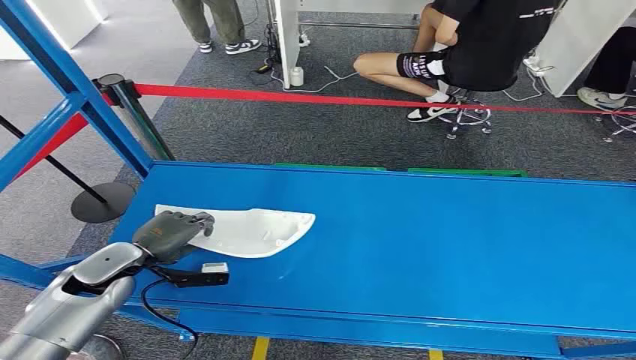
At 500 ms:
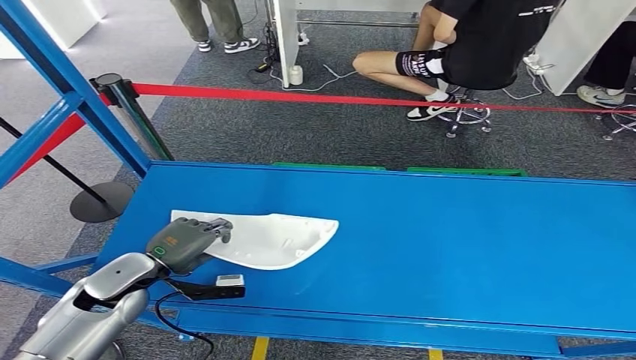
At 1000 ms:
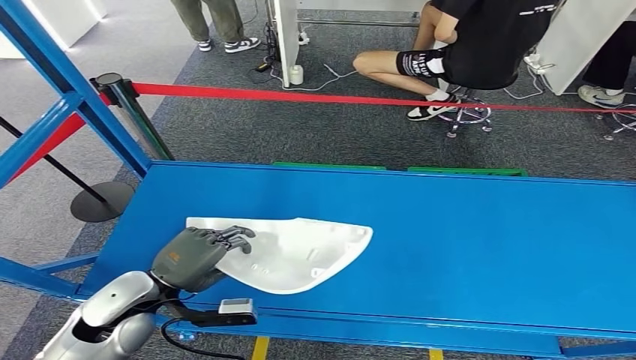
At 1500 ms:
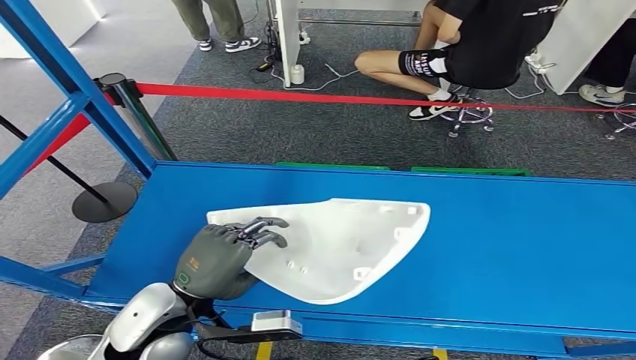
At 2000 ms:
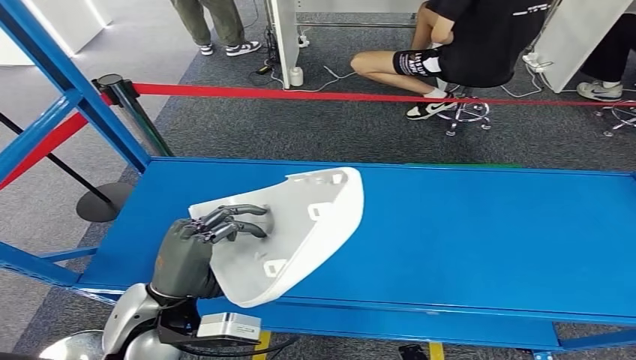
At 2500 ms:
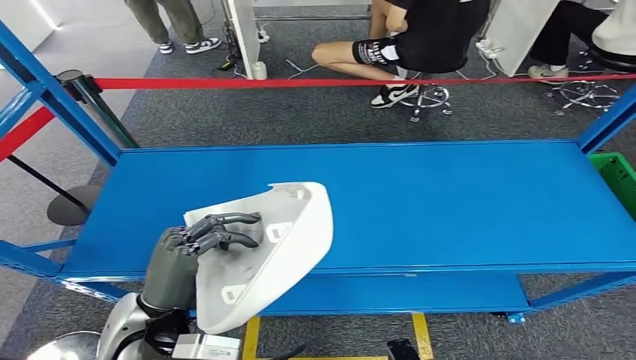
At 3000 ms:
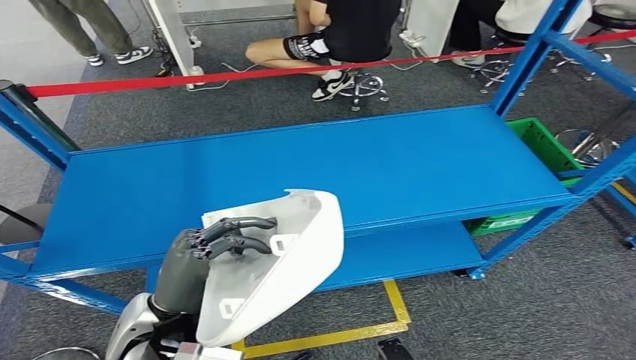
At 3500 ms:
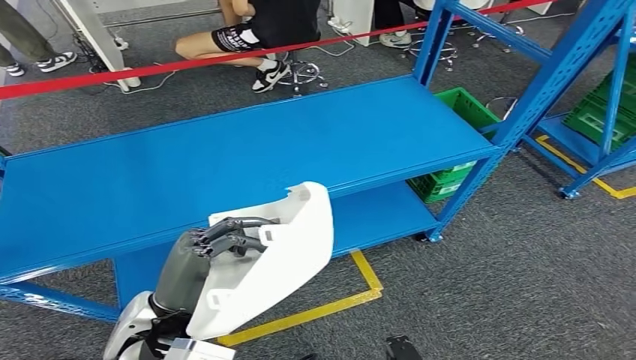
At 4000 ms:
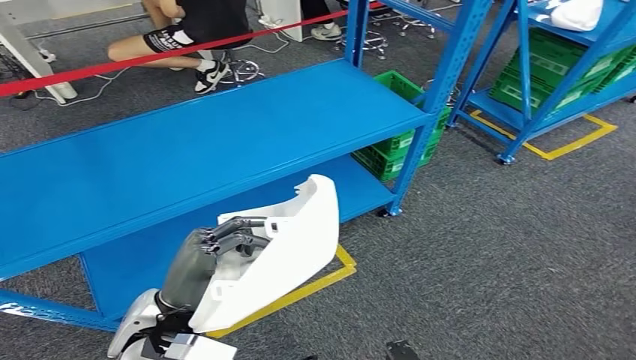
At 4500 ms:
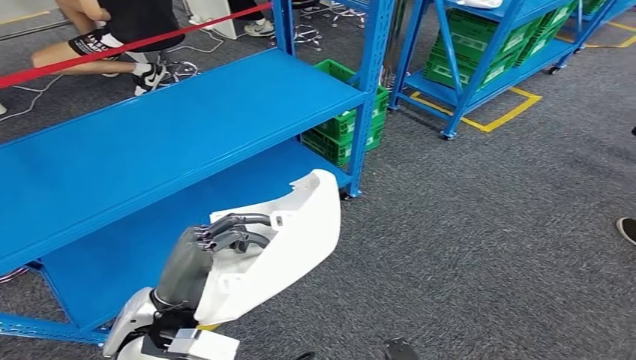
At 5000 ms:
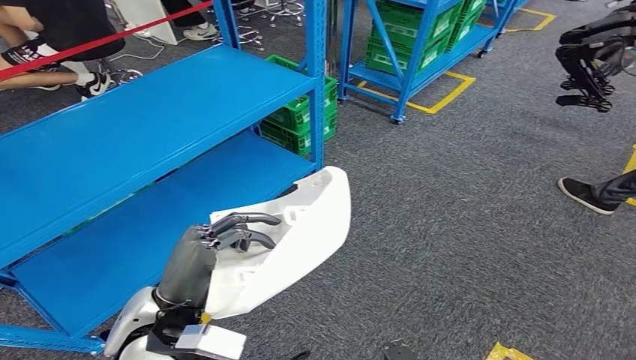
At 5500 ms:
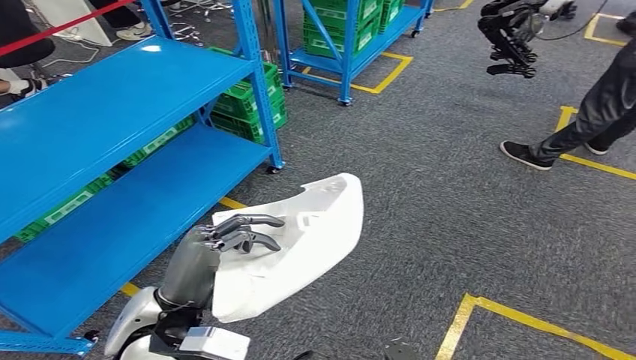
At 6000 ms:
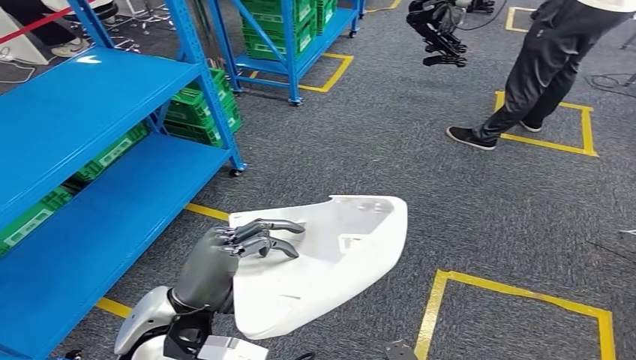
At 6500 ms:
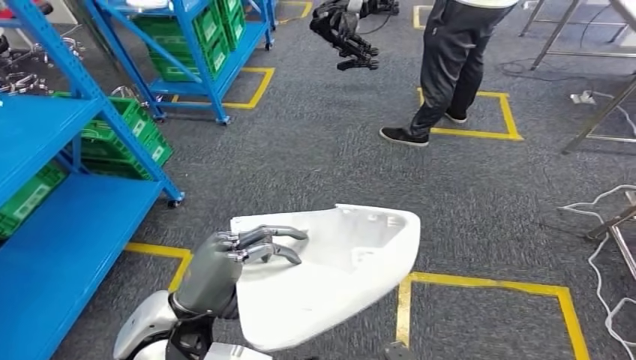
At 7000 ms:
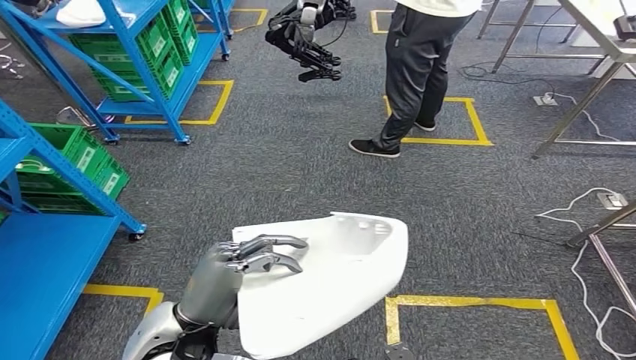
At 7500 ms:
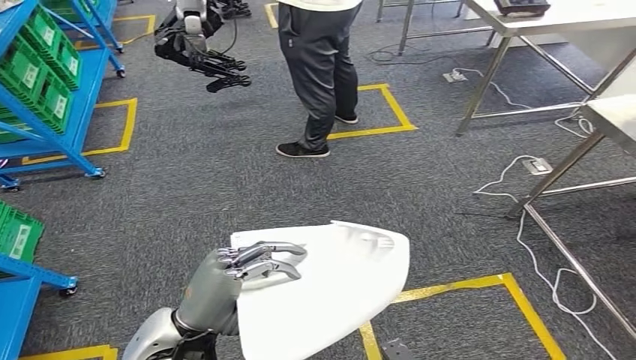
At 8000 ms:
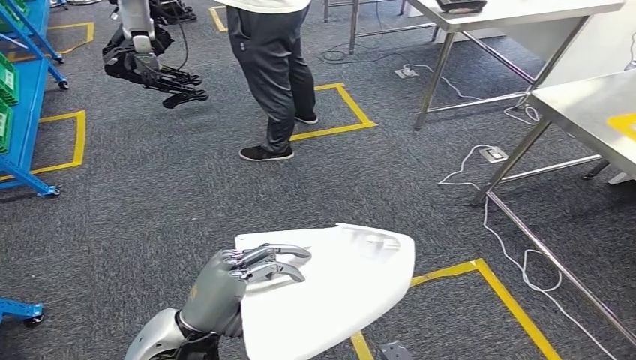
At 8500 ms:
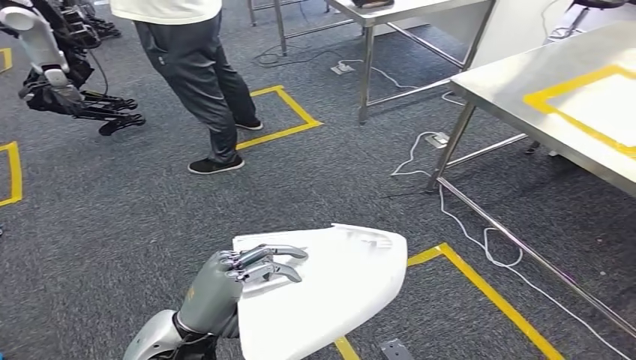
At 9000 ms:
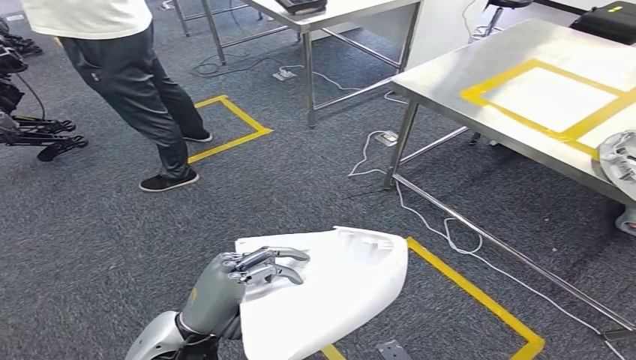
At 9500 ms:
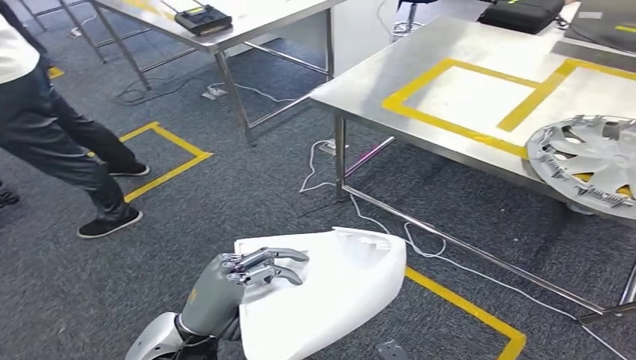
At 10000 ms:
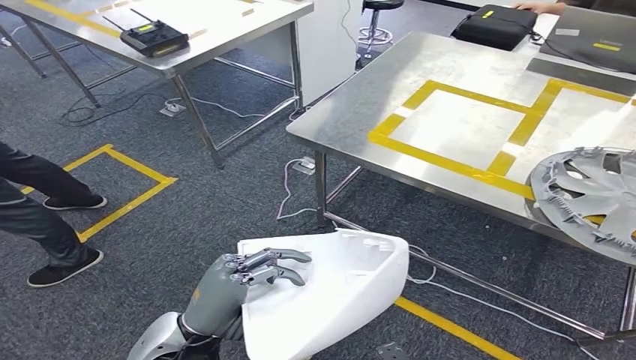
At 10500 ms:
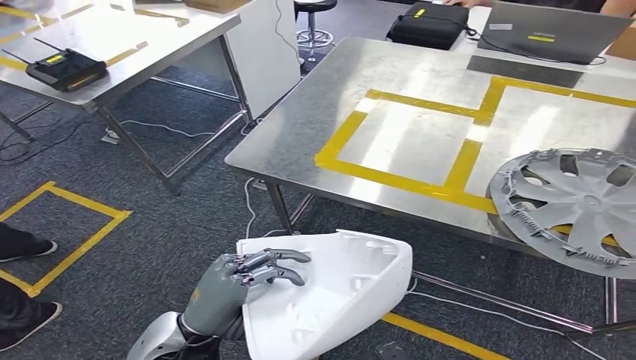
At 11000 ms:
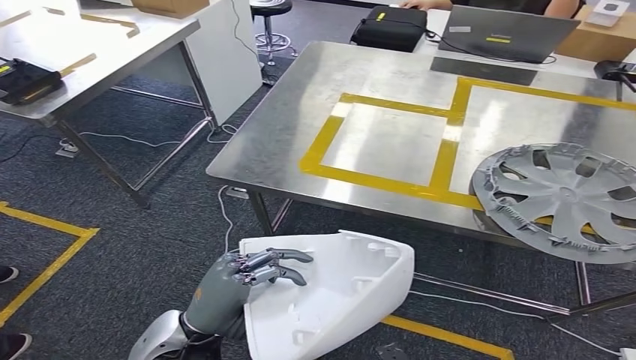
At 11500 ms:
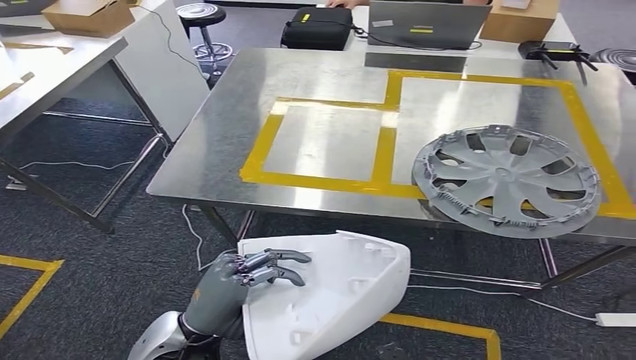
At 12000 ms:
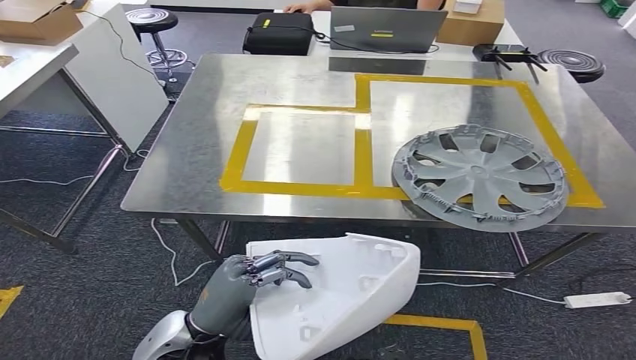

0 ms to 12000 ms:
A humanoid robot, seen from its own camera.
Step, 0 ms to 3500 ms: Pick up the small component from the shelf.

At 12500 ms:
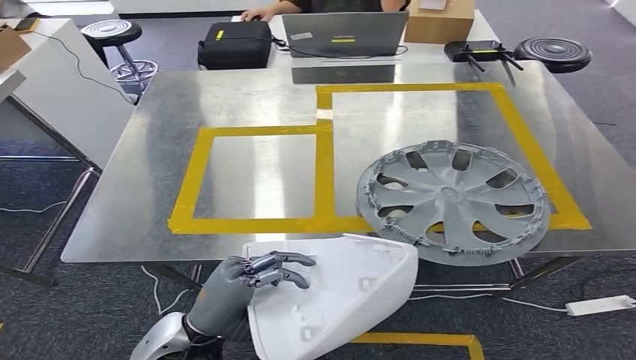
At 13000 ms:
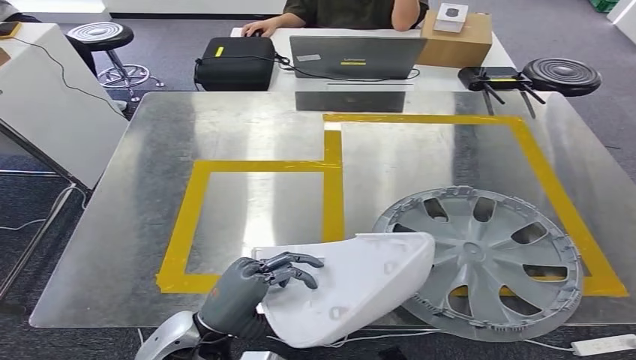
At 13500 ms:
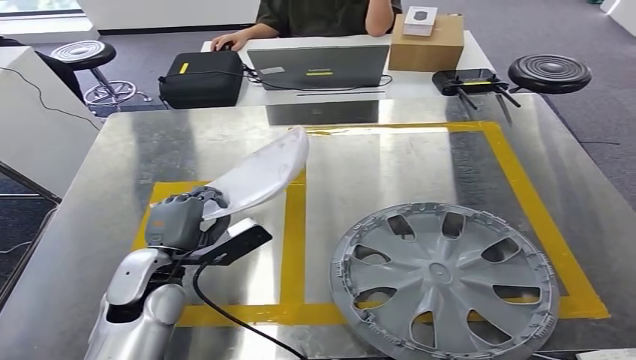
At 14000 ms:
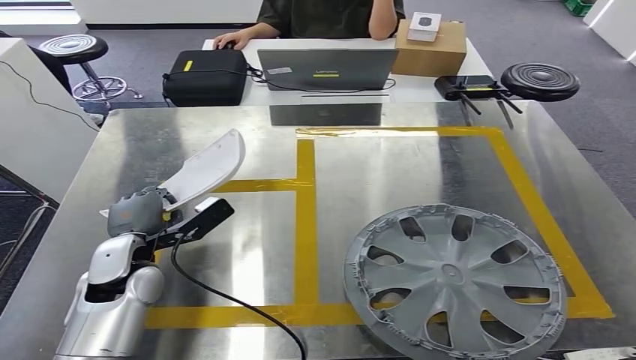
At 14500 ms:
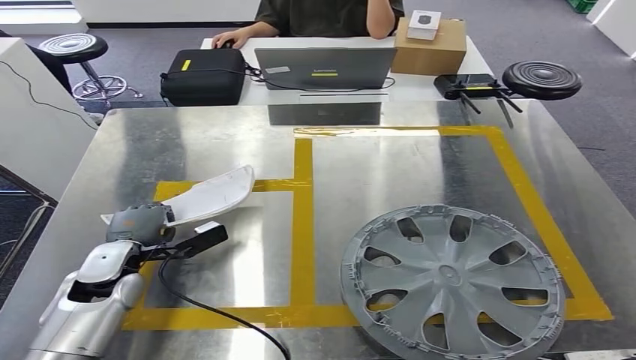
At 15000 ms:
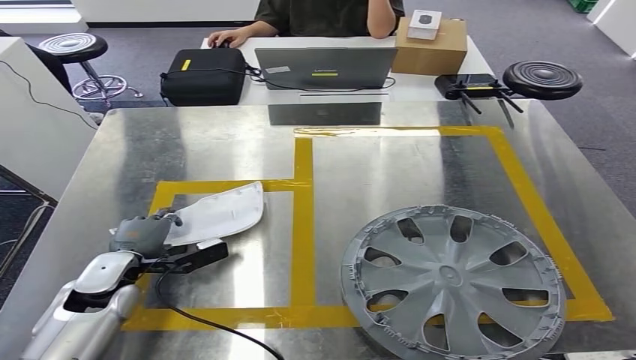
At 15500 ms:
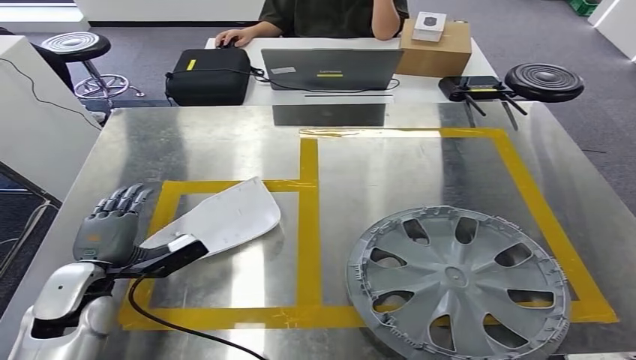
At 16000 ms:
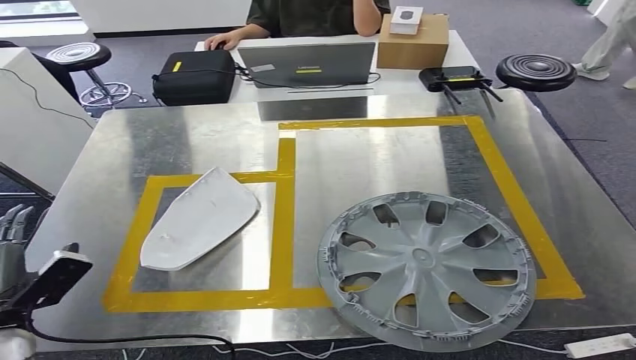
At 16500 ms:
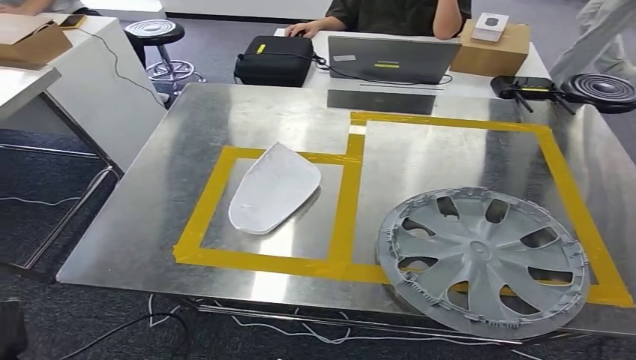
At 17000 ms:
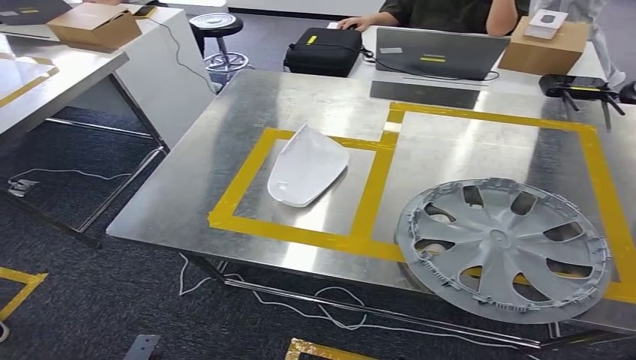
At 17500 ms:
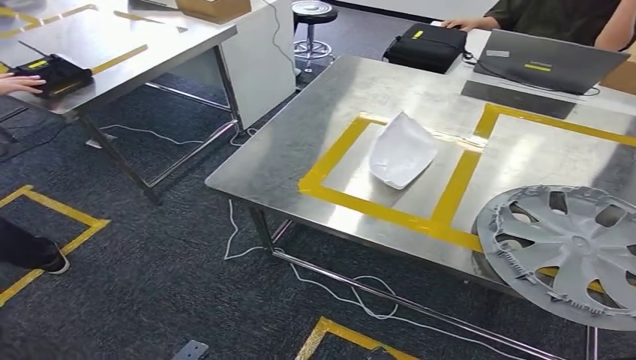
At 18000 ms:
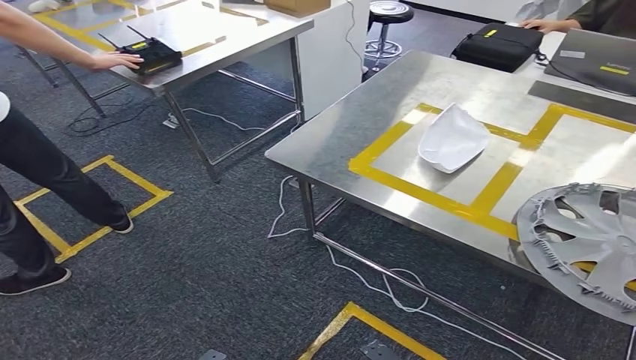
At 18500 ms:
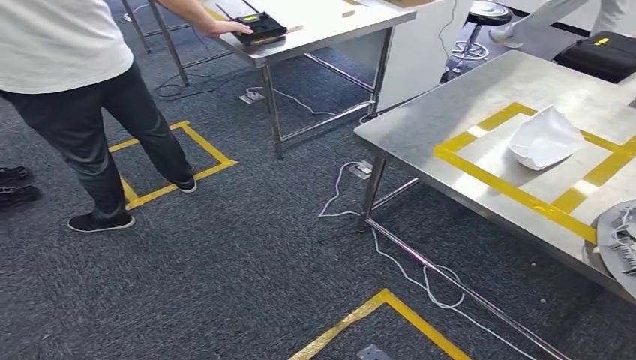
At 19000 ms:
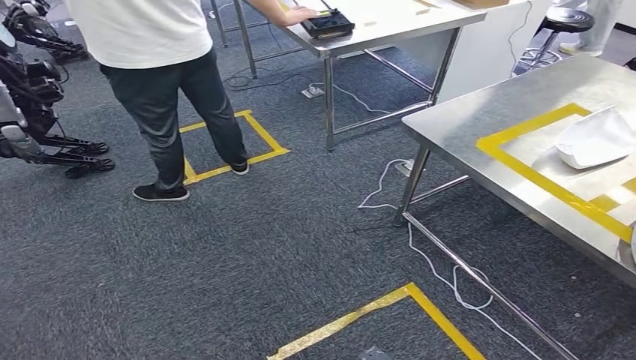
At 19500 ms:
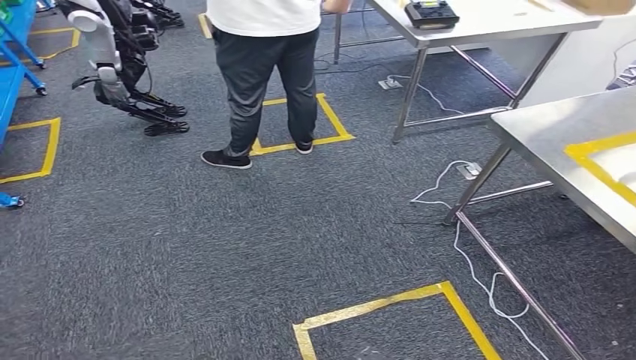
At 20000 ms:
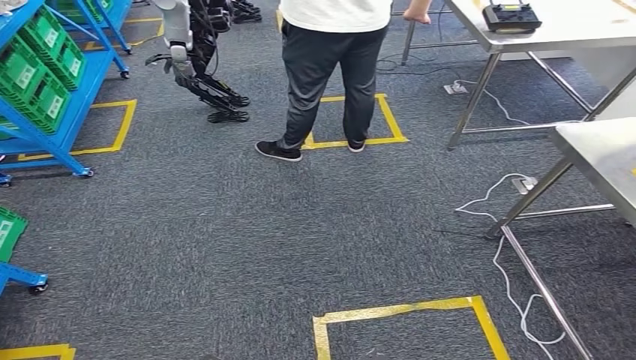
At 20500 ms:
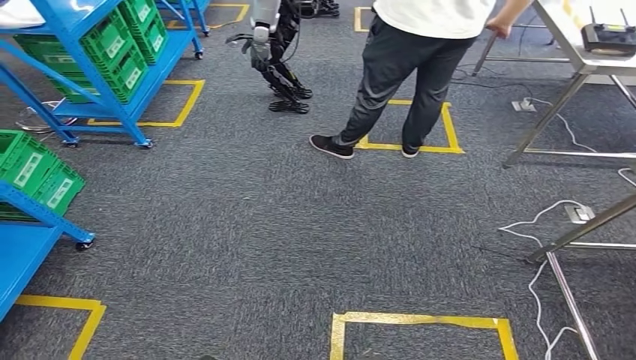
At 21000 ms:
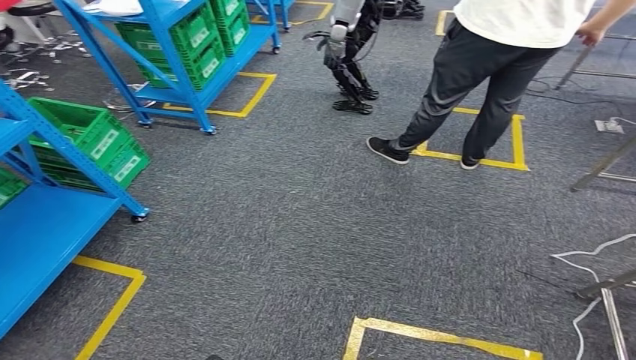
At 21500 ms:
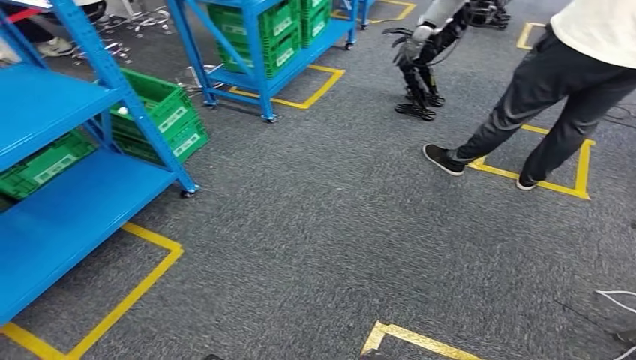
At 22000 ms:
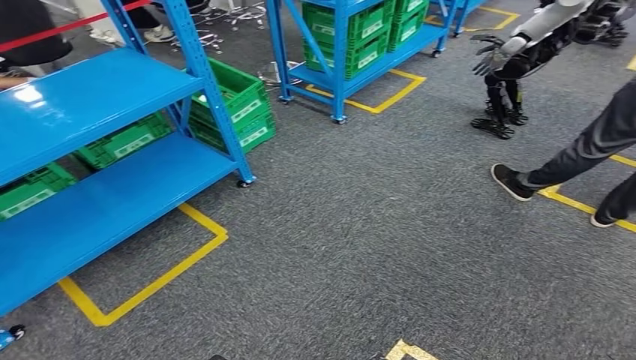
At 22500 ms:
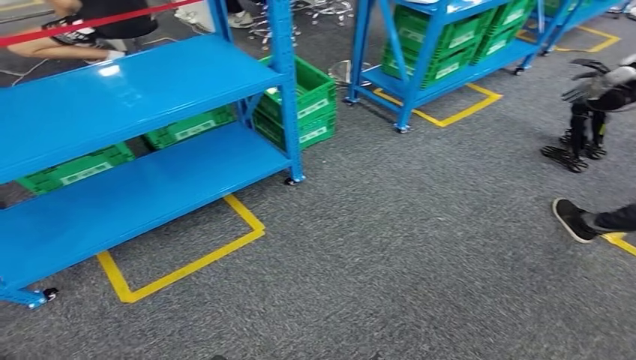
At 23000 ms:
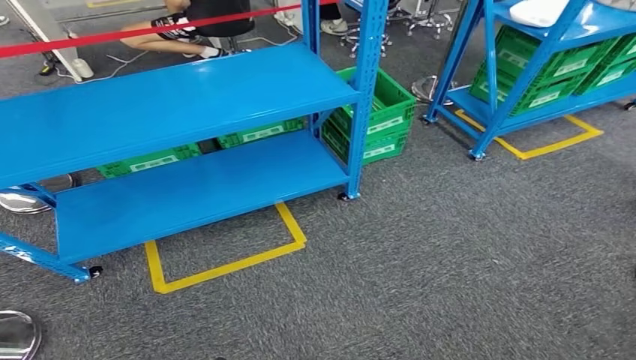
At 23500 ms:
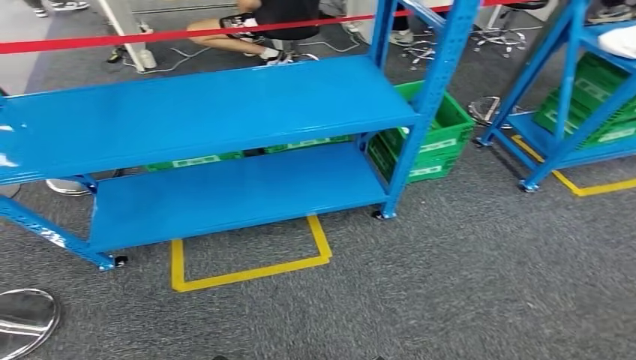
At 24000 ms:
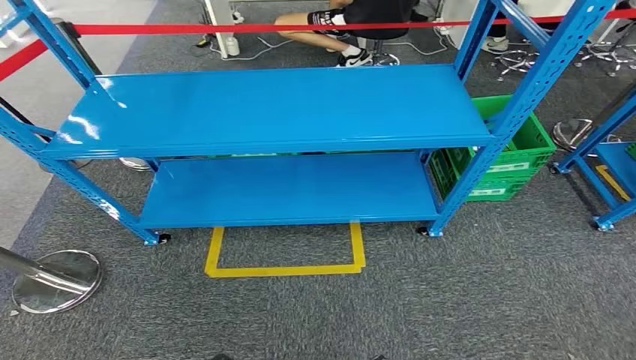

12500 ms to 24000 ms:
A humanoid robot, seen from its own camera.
Step, 13000 ms to 17500 ms: Insert the small component into the corresponding slot on the workbench.
